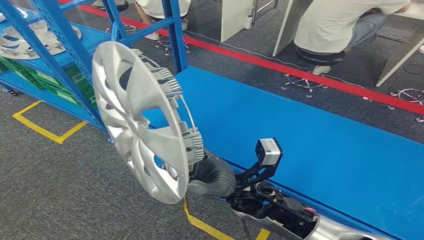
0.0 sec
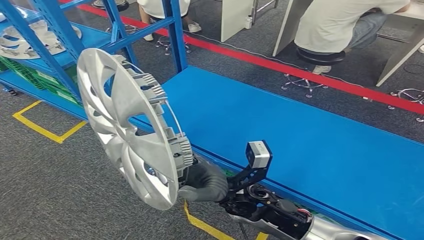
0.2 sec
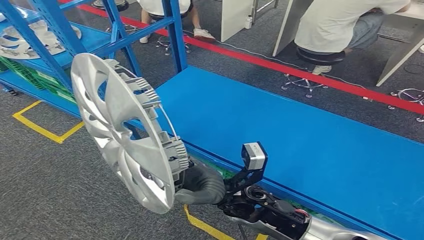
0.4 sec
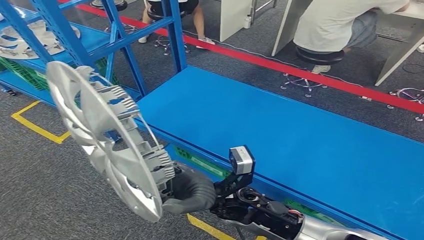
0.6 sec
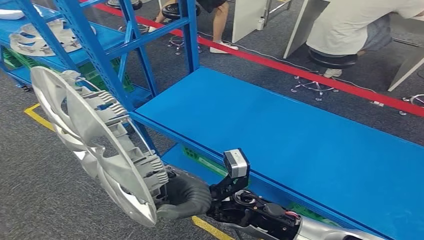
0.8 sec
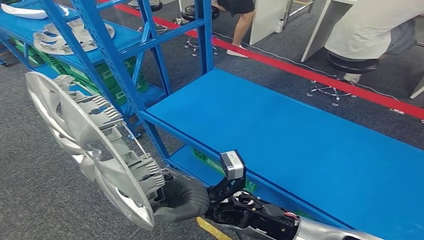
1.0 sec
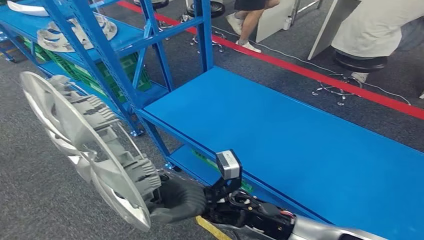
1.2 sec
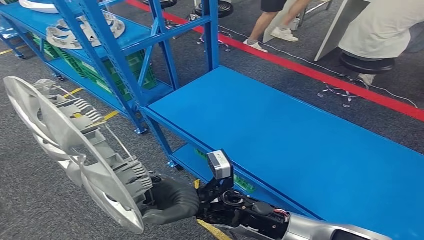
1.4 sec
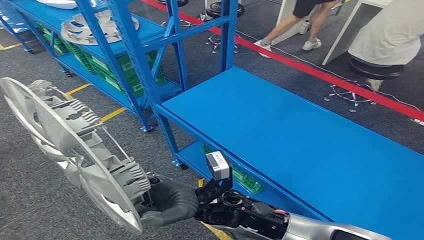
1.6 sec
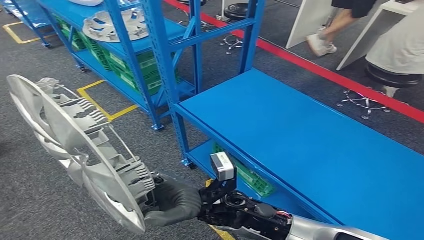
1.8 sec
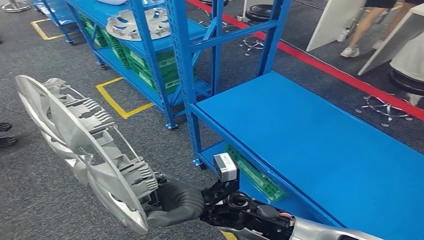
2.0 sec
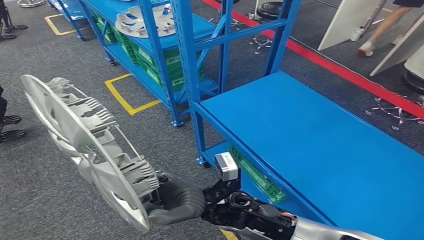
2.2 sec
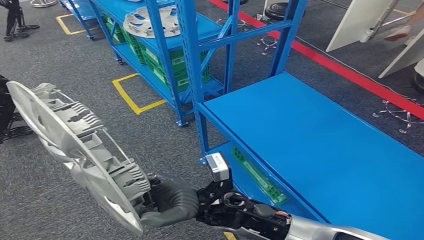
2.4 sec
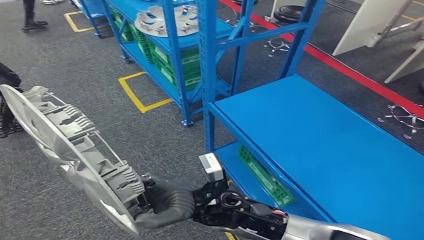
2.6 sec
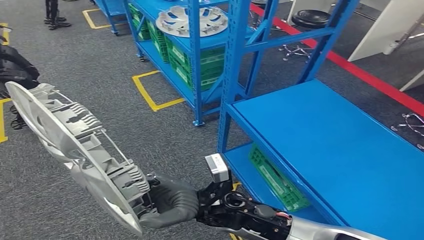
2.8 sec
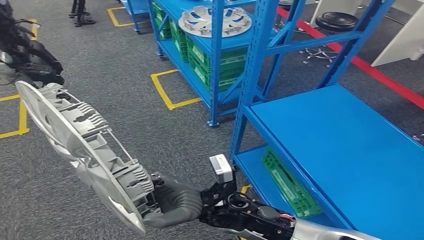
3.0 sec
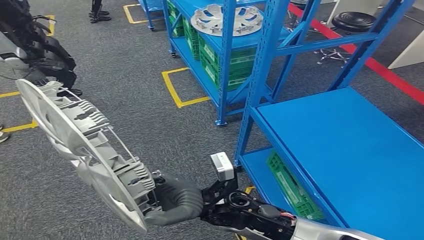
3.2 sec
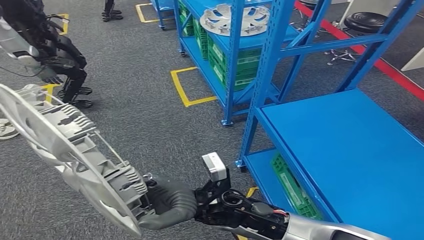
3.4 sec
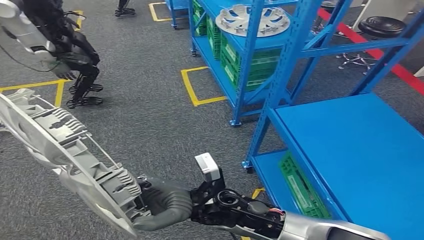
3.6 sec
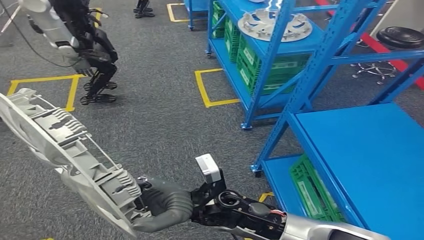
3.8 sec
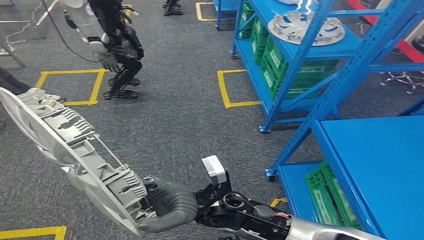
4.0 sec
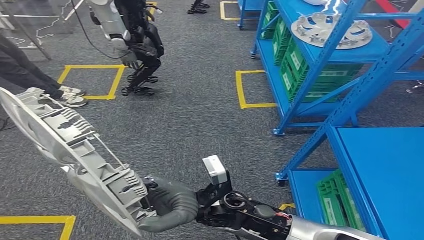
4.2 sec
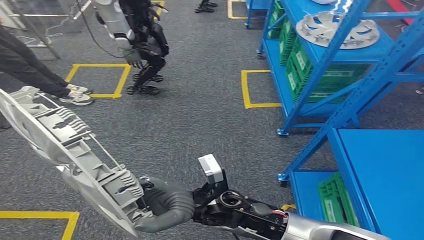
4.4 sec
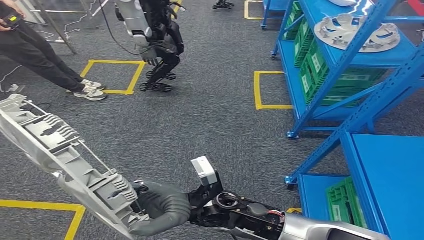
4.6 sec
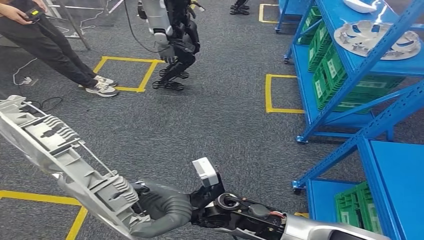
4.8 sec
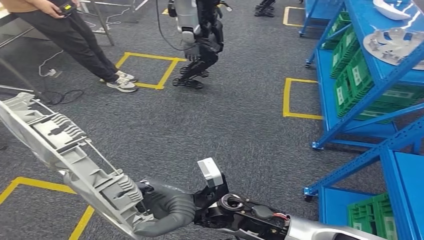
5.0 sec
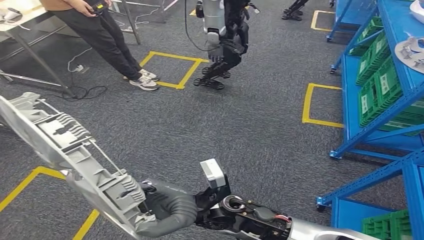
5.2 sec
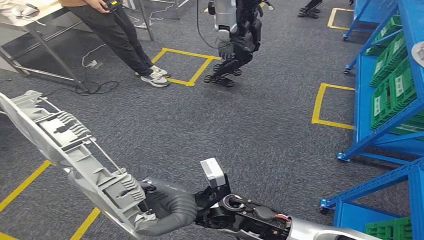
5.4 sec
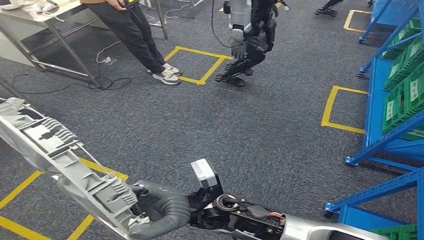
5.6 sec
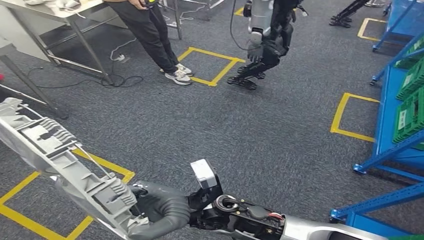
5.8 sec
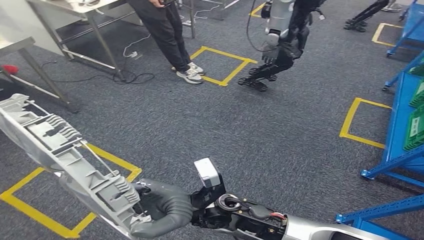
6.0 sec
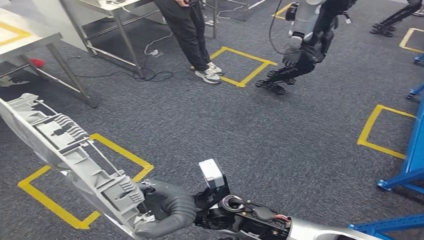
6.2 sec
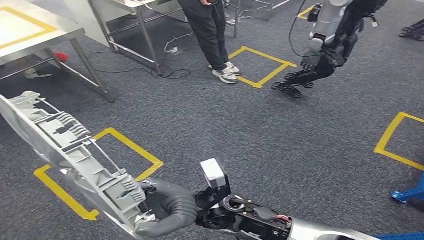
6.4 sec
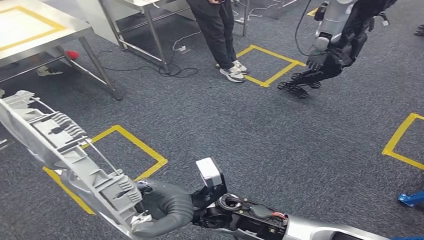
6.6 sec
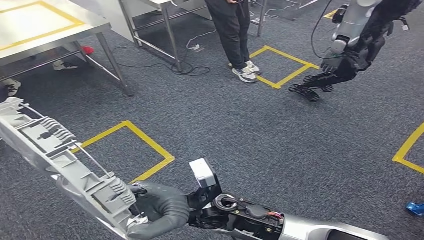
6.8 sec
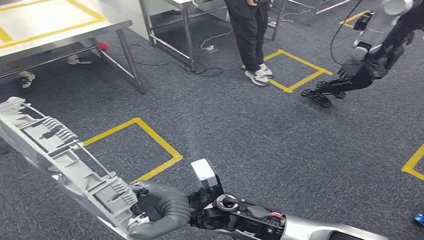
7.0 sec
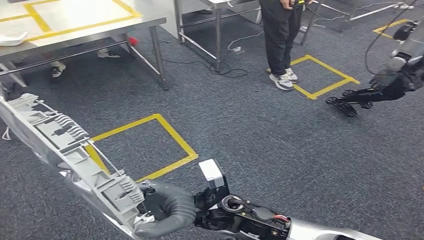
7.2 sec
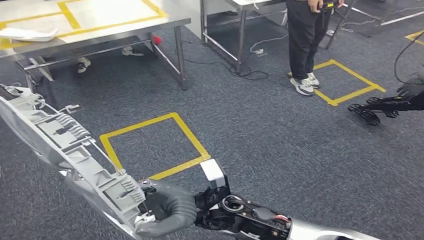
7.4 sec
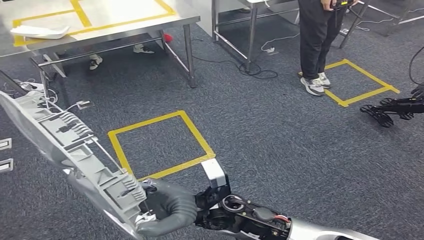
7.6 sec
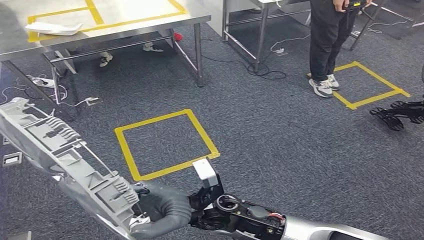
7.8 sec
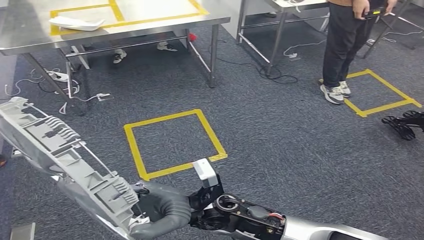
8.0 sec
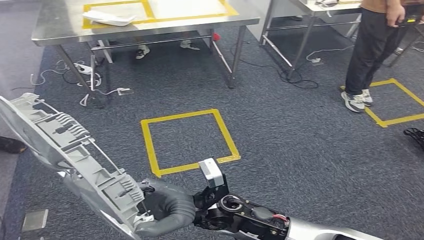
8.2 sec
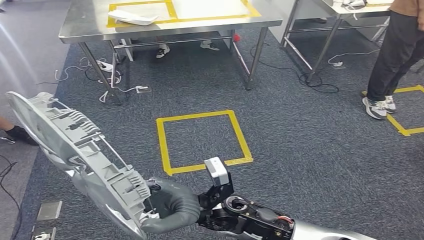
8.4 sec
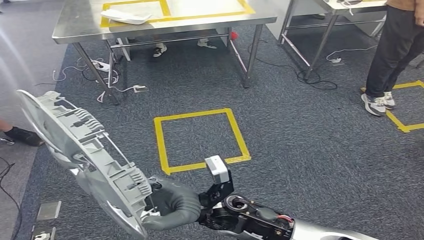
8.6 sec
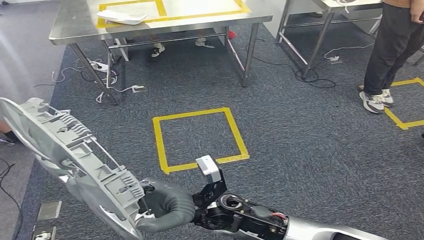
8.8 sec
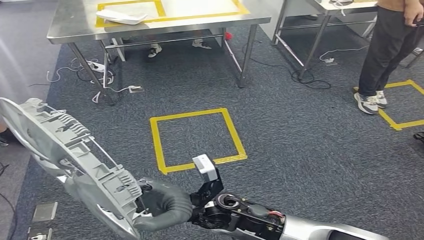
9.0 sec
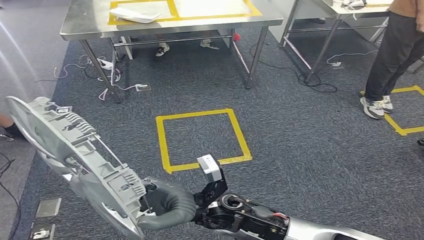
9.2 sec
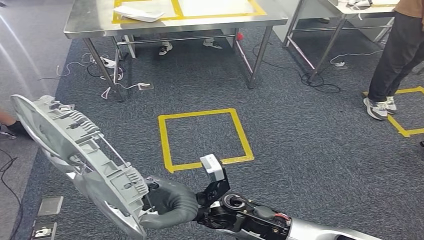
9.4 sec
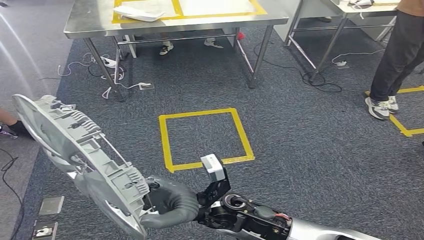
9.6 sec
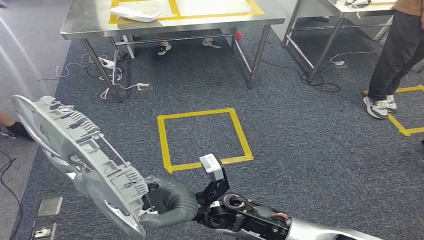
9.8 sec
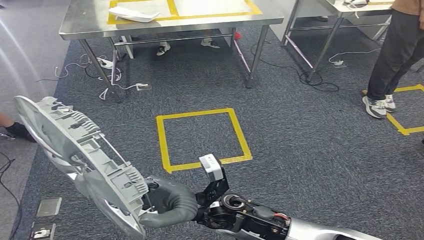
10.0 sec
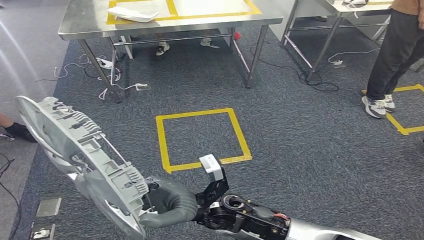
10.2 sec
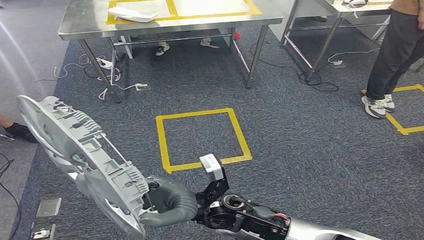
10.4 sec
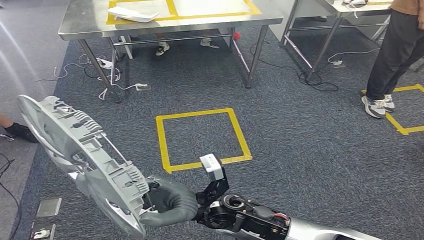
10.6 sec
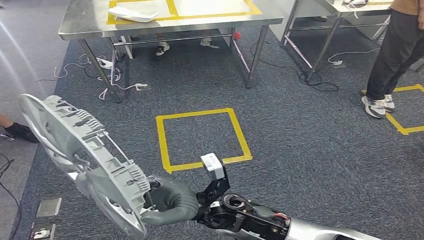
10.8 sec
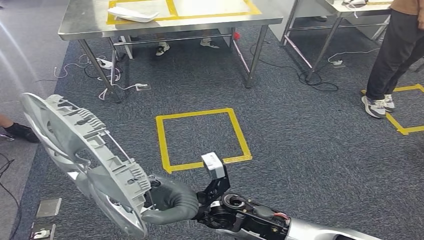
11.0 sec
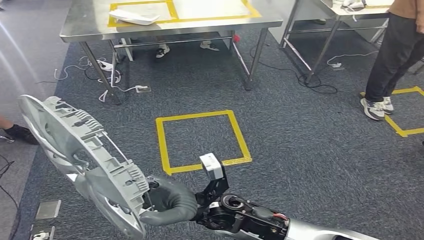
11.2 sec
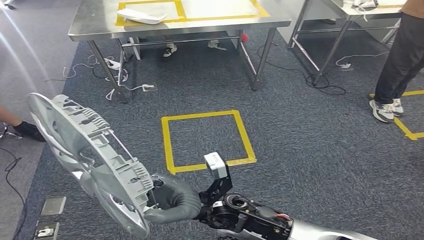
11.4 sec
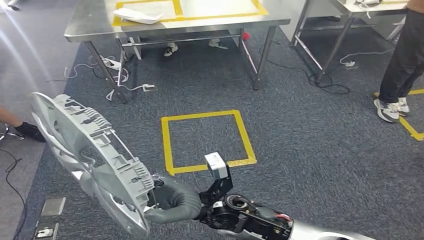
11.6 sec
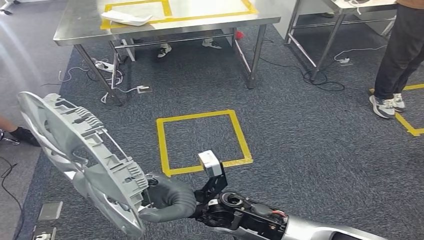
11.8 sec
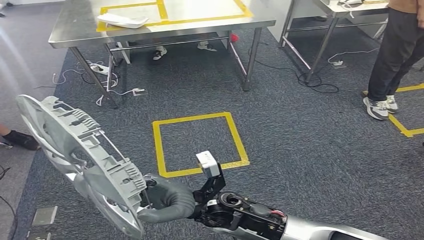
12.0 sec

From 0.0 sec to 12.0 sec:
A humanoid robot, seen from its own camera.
From 10.4 sec to 12.0 sec: Both hands stay put.

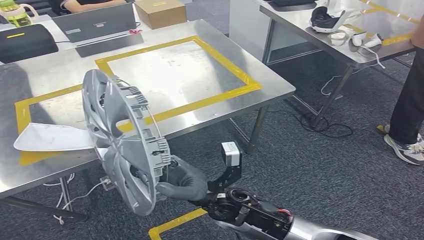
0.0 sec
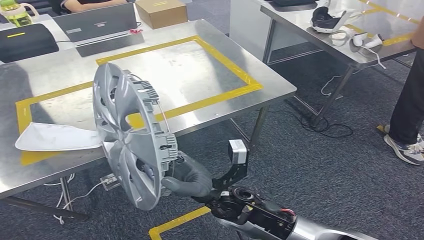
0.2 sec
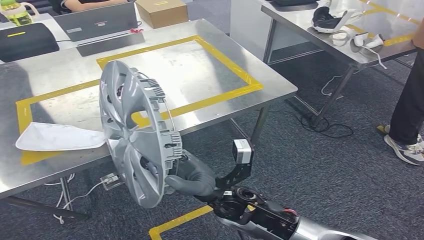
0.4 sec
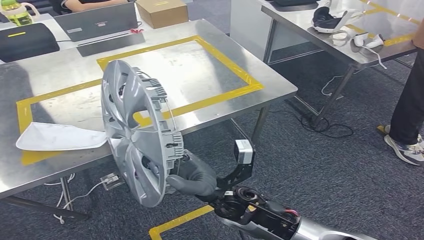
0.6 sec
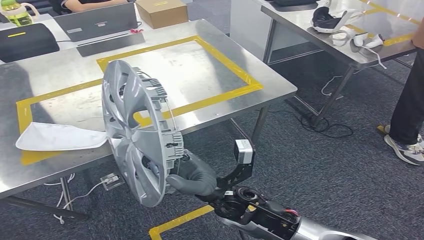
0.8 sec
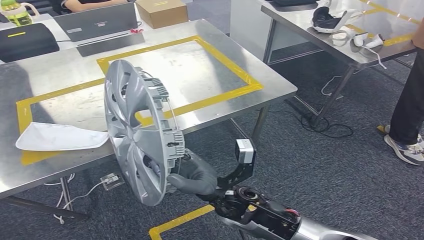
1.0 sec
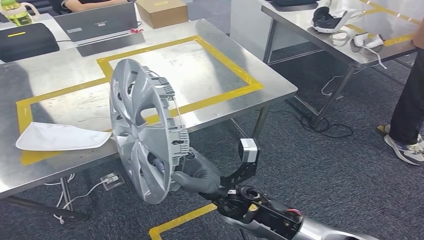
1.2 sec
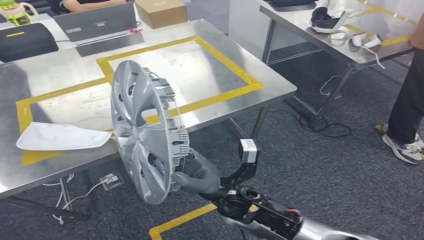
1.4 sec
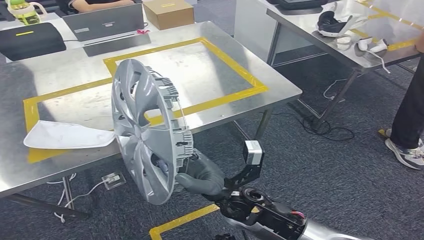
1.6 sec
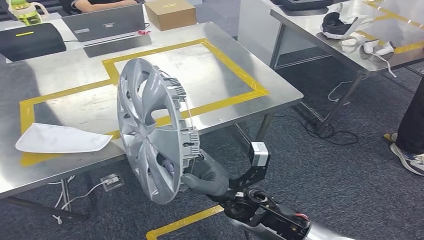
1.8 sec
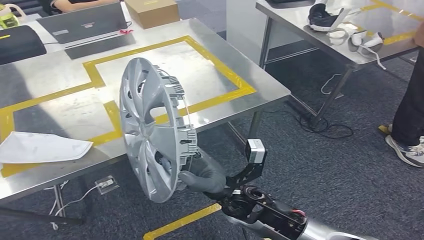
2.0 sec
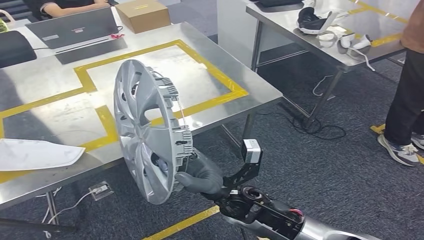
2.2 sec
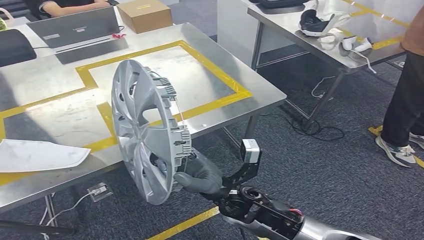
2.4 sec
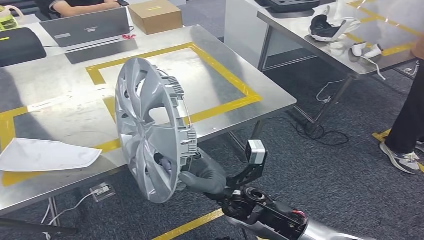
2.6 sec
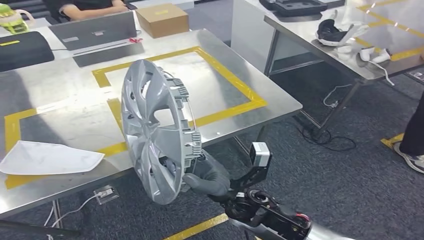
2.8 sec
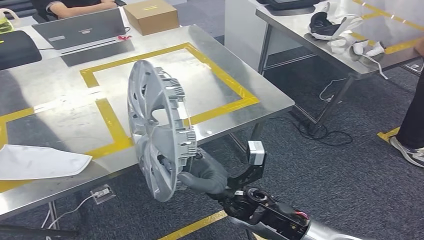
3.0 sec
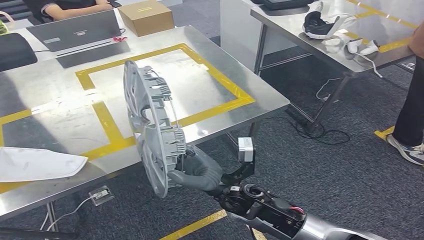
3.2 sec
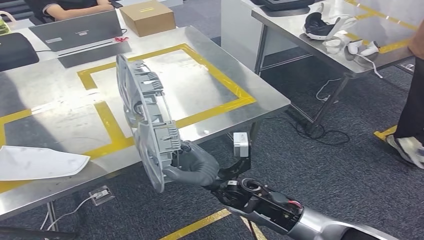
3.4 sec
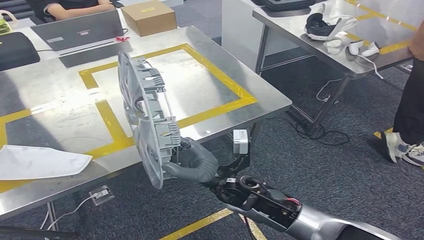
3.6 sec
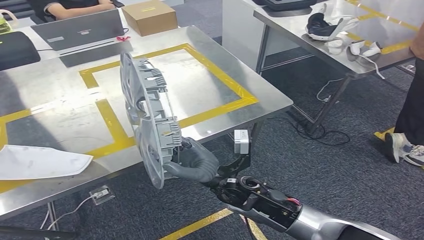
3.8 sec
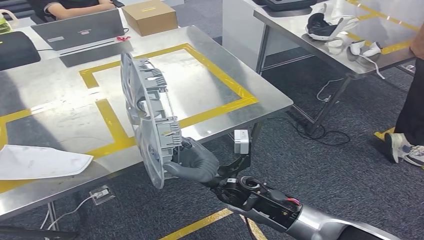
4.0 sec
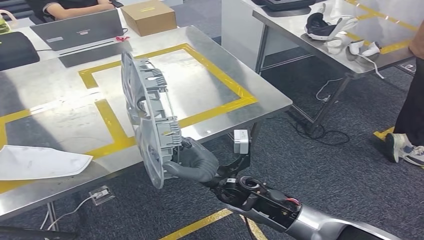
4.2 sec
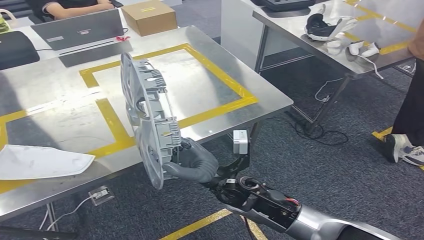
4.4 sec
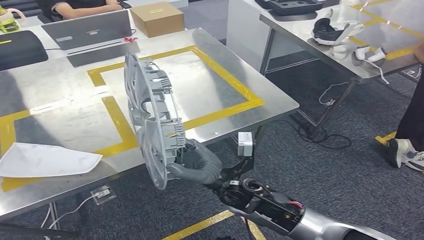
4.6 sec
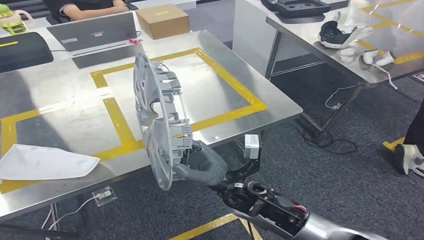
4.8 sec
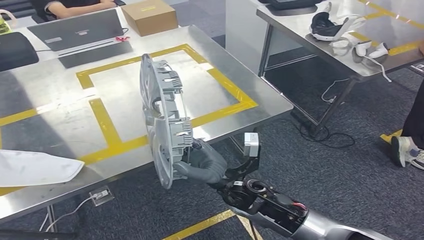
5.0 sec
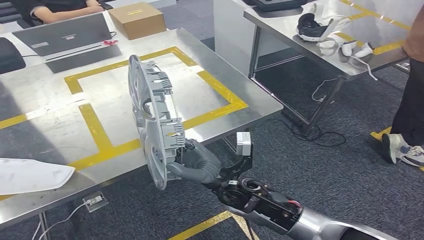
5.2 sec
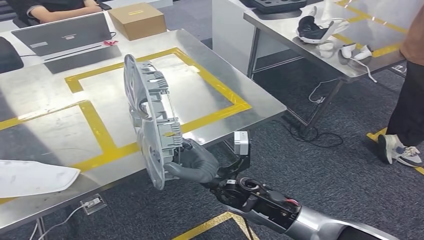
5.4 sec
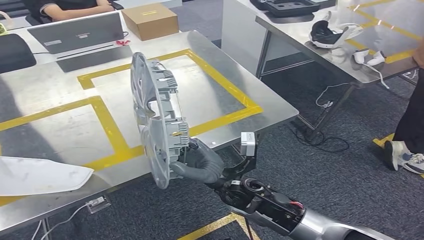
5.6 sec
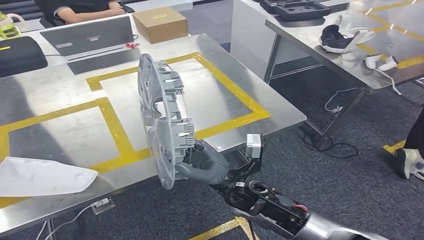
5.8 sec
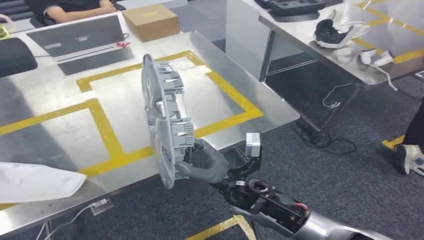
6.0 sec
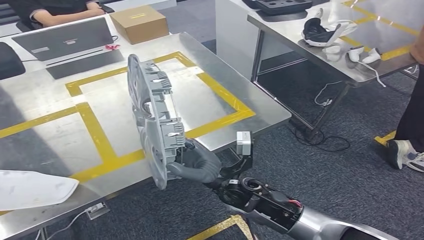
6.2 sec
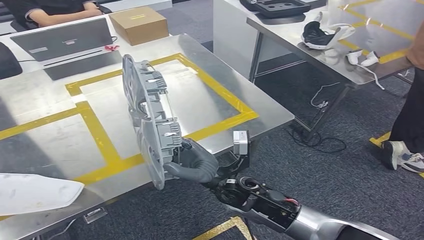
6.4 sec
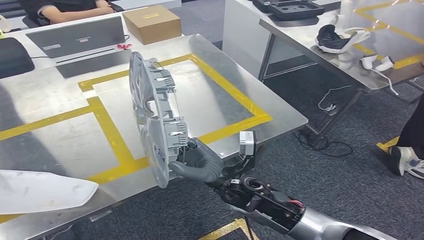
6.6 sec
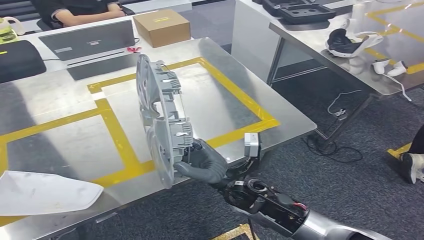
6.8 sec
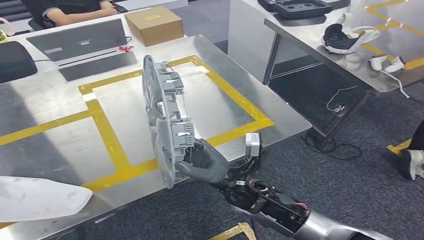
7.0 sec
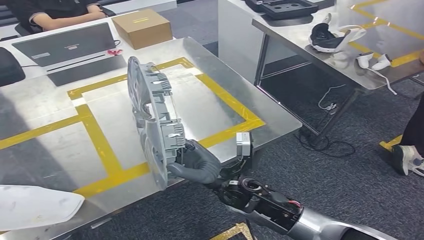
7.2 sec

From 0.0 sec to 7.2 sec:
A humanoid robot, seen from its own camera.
Step, from 0.0 sec to 2.6 sec: Move the small component to the workbench.
From 0.0 sec to 1.4 sec: The hands stay close to where they were, moving slightly.
